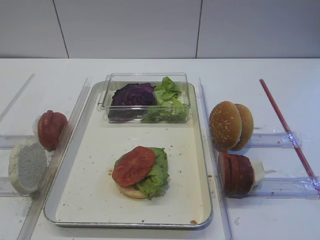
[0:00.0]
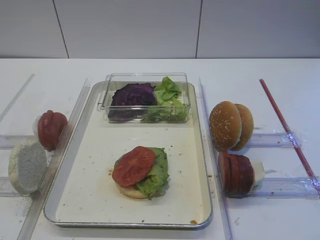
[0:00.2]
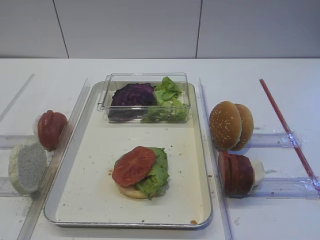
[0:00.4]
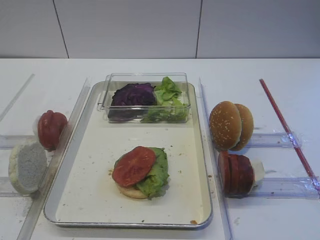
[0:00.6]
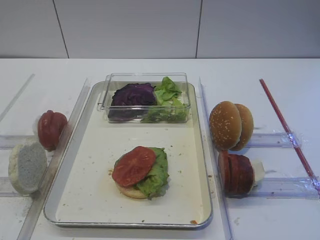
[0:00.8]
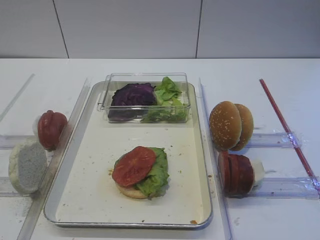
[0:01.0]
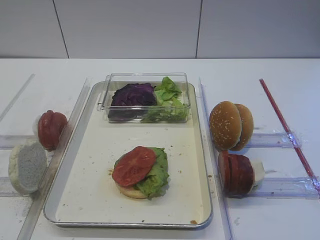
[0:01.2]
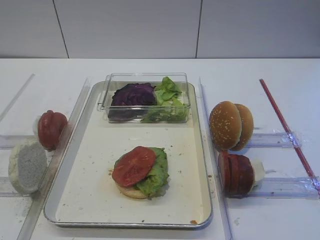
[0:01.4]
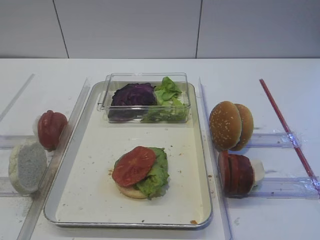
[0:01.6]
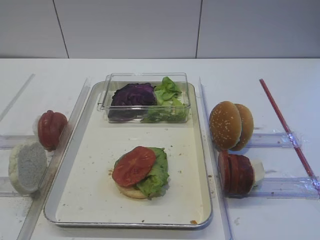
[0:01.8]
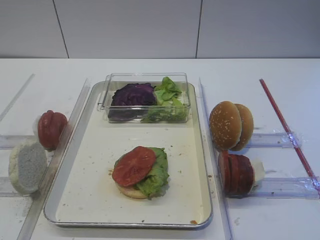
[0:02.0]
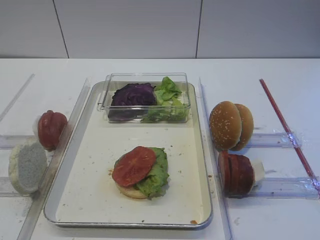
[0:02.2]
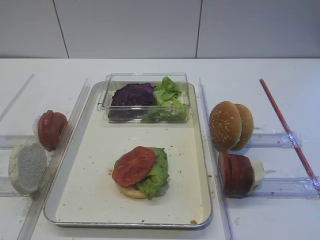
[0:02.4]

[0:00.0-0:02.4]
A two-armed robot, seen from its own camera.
0:00.0 to 0:02.4: Both grippers stay about where they are.

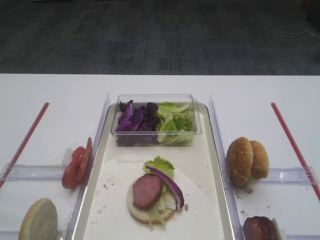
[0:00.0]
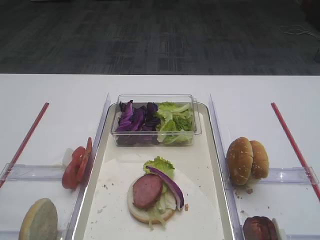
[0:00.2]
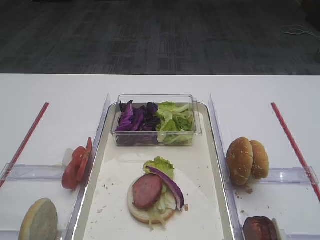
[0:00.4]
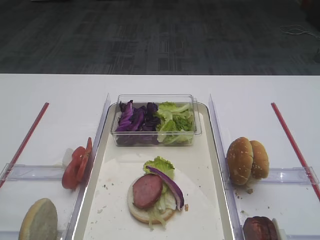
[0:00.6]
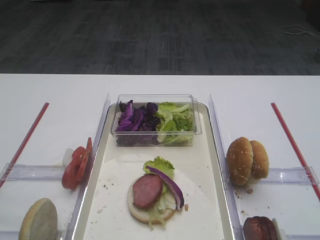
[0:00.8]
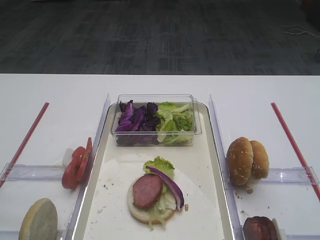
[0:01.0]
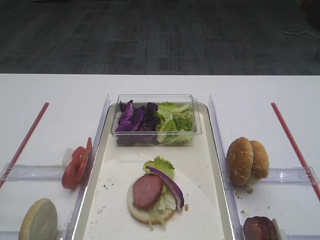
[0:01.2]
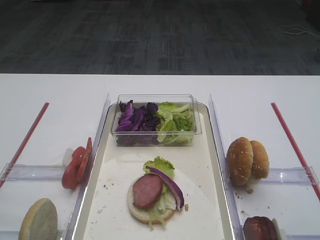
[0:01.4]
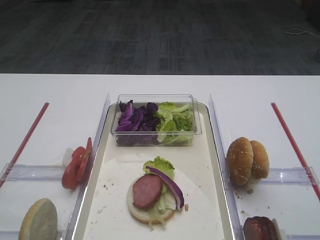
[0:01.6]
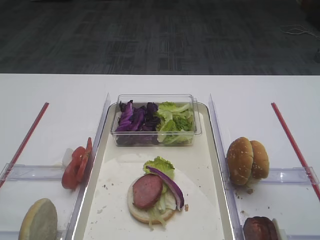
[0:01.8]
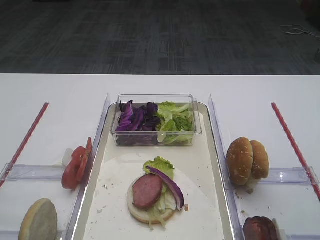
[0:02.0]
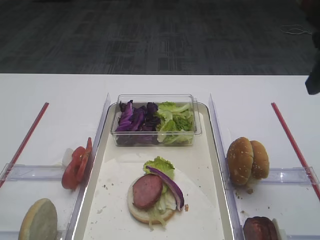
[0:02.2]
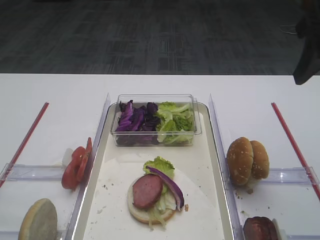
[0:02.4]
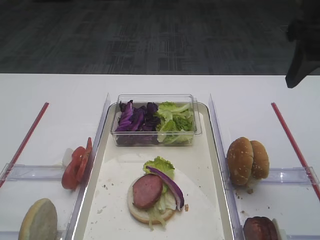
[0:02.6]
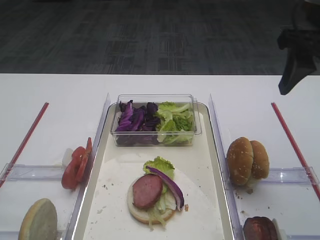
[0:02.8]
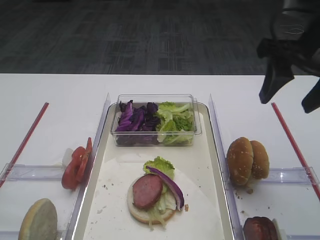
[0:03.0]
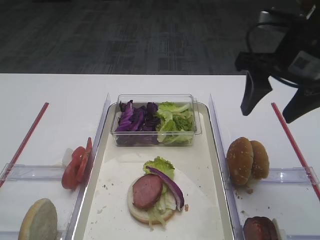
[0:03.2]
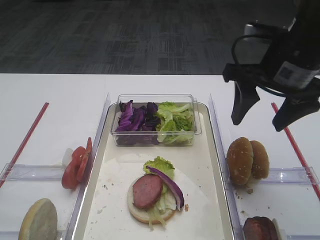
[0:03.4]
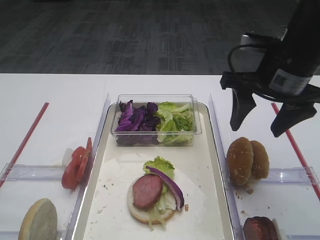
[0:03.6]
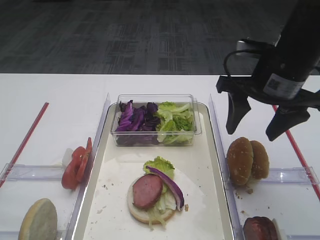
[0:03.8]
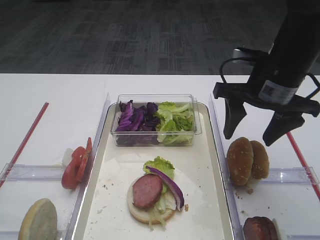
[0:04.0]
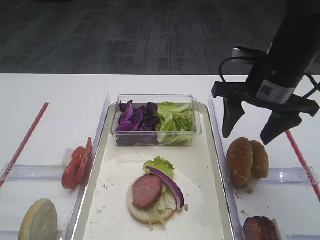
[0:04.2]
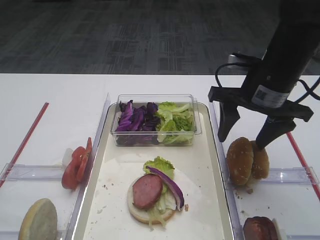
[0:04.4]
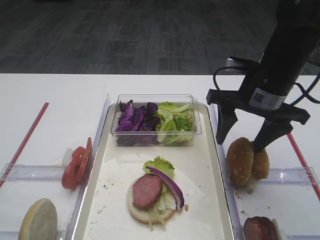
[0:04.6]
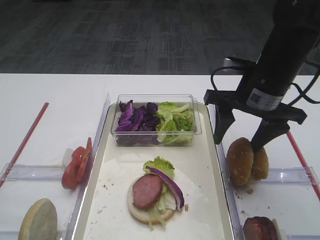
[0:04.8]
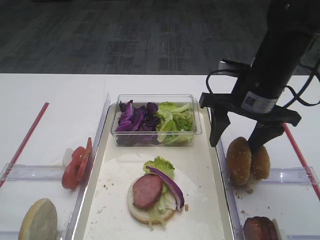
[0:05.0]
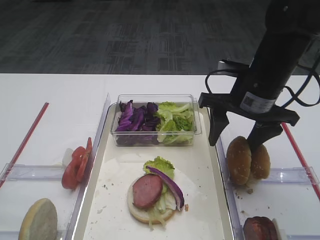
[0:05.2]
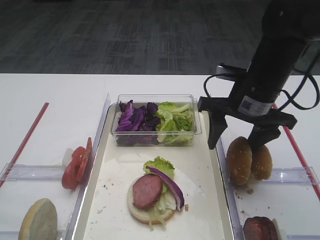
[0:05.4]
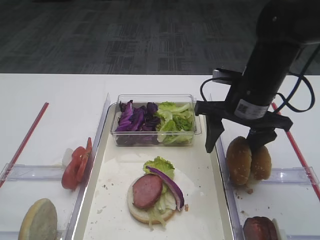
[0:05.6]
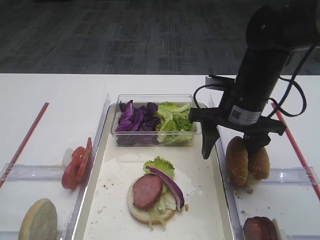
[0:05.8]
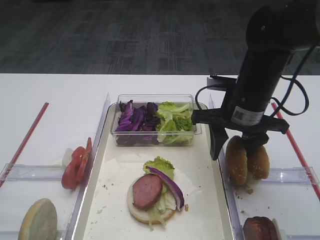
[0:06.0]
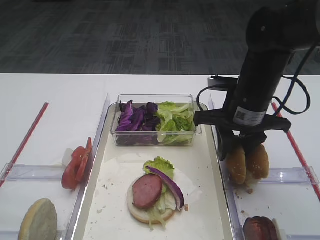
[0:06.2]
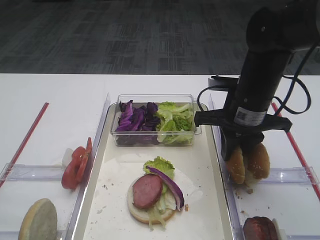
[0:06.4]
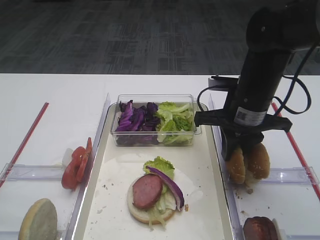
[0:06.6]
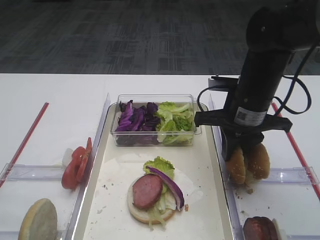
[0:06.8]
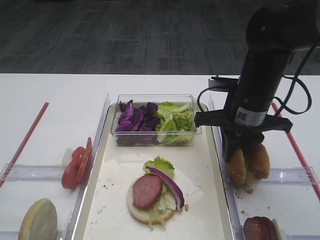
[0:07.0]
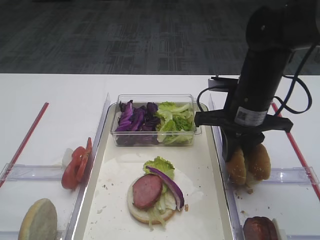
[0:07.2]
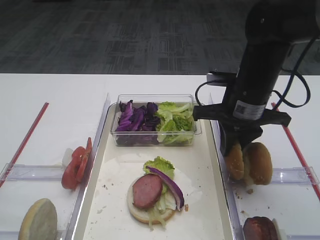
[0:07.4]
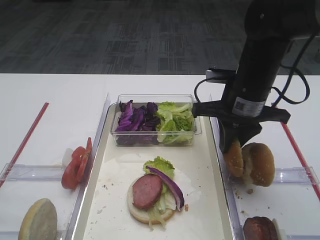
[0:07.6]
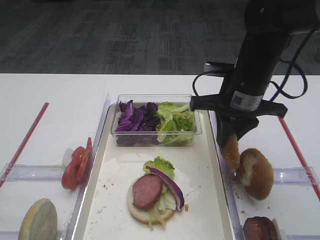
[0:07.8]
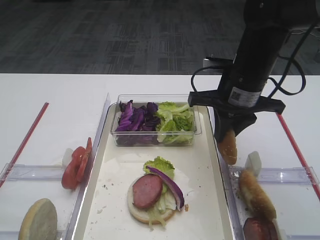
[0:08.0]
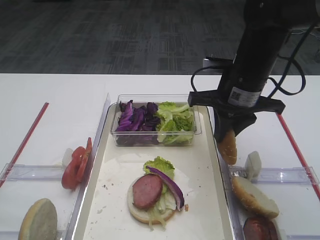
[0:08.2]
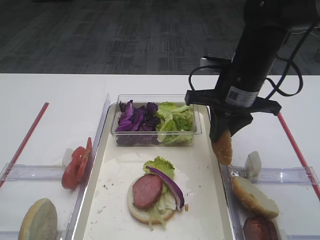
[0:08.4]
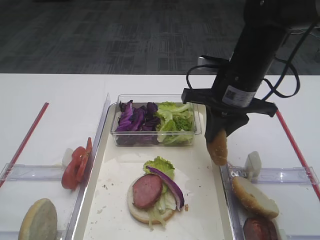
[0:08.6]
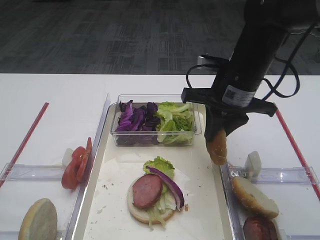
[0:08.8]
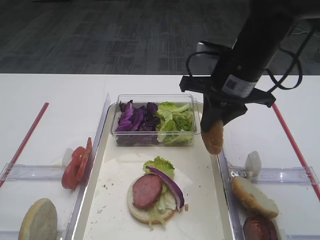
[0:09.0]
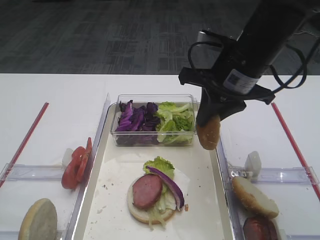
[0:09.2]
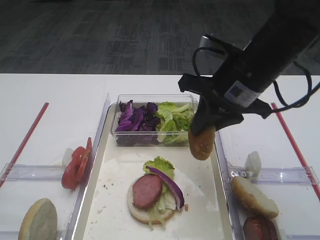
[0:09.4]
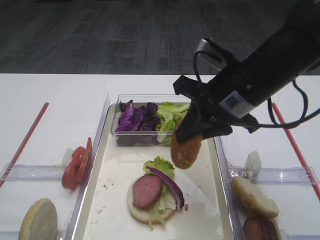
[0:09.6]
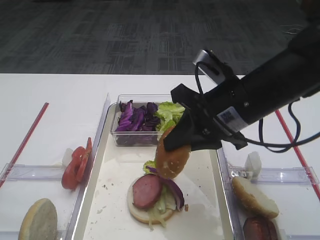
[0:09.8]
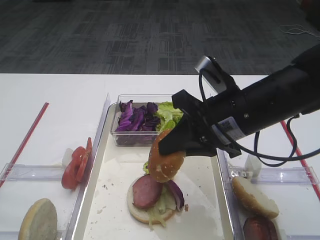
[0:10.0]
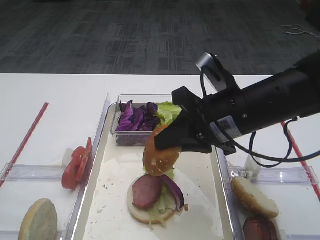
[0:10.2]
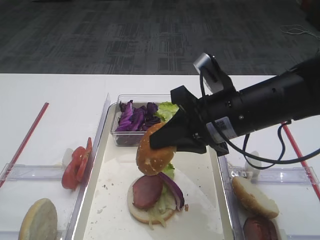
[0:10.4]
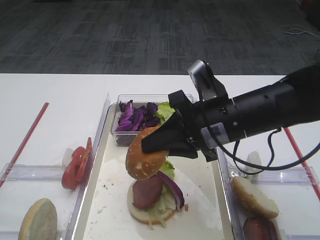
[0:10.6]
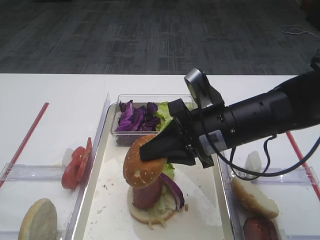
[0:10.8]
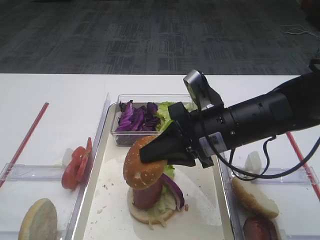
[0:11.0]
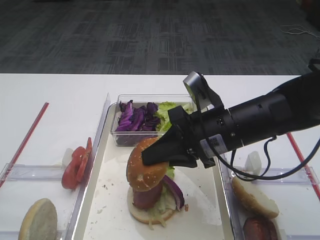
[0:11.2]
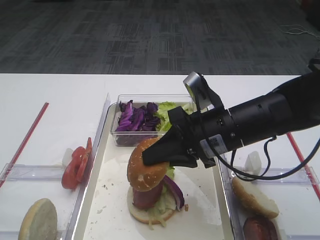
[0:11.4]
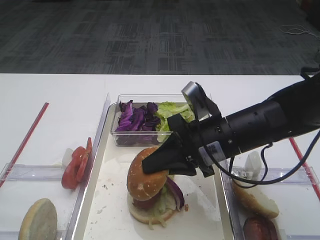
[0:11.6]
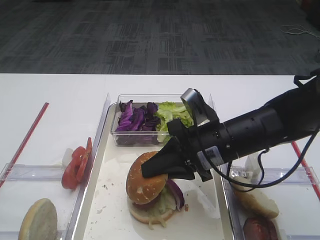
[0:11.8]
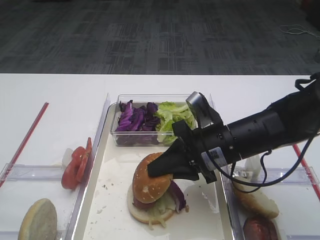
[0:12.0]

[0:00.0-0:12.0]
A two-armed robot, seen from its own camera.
Step, 0:00.0 to 0:08.4: Pick up the hamburger lid with the right gripper.
0:01.6 to 0:03.0: The right gripper is displaced forward by approximately 20 cm.
0:03.0 to 0:04.4: The right gripper moves downward and to the left, some 10 cm.
0:04.4 to 0:06.0: The grippers stay close to where they were, moving slightly.
0:06.0 to 0:07.6: The right gripper closes its fingers.
0:07.6 to 0:09.0: The grippers move only a little.
0:09.0 to 0:10.4: The right gripper shifts roughly 5 cm backward.
0:10.4 to 0:12.0: The right gripper shifts approximately 5 cm downward.

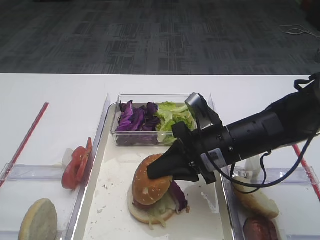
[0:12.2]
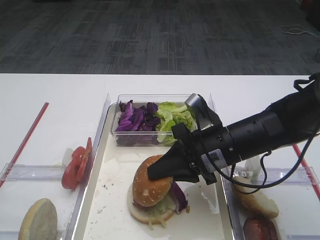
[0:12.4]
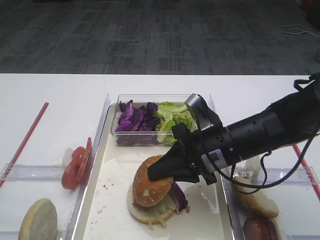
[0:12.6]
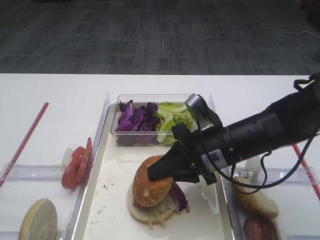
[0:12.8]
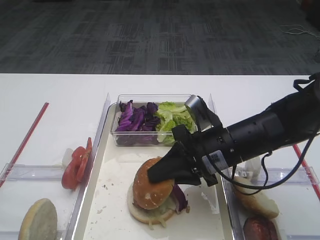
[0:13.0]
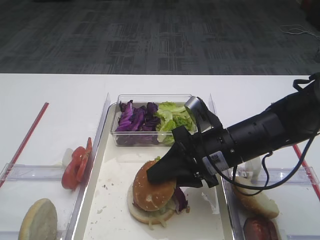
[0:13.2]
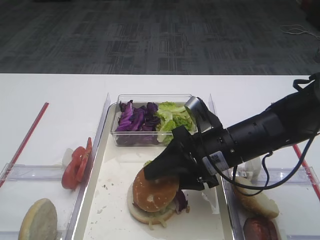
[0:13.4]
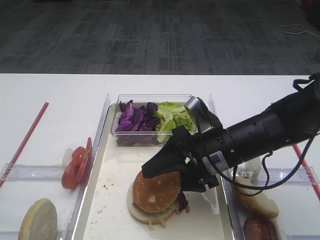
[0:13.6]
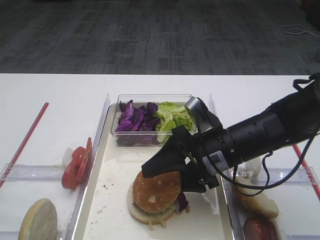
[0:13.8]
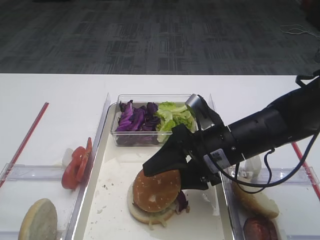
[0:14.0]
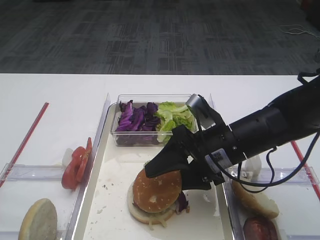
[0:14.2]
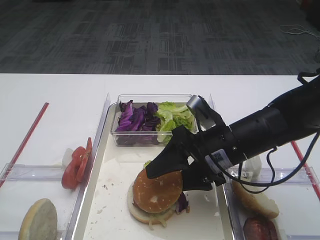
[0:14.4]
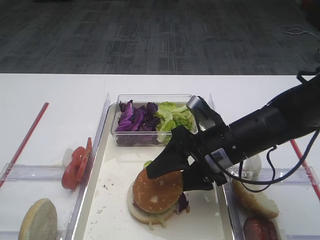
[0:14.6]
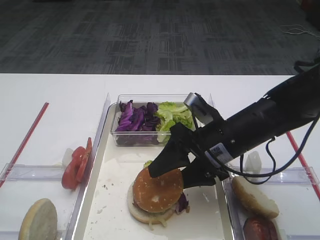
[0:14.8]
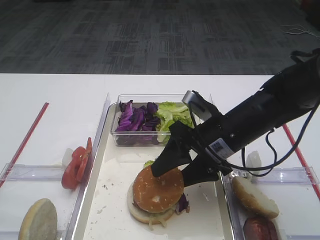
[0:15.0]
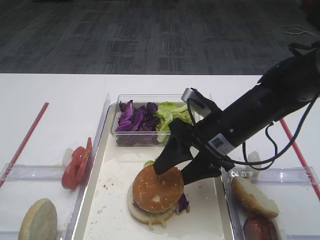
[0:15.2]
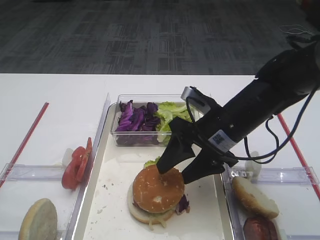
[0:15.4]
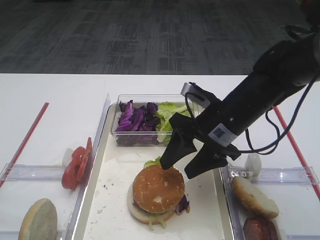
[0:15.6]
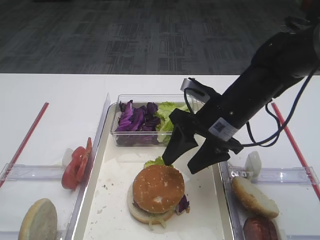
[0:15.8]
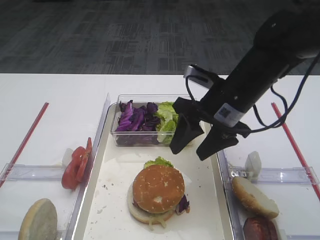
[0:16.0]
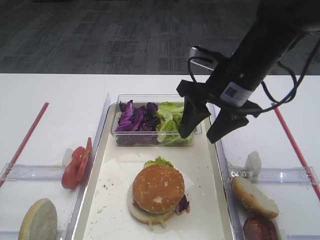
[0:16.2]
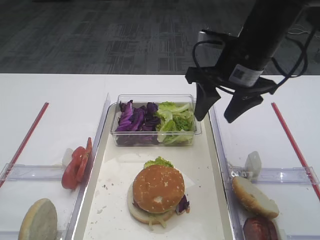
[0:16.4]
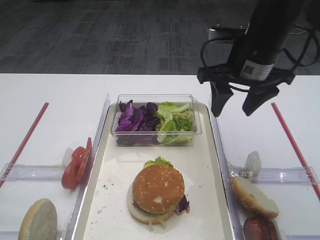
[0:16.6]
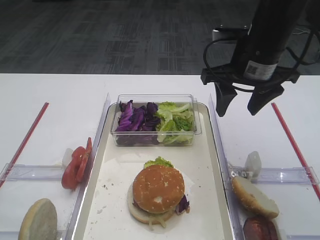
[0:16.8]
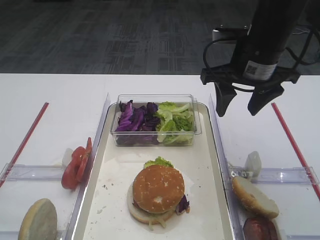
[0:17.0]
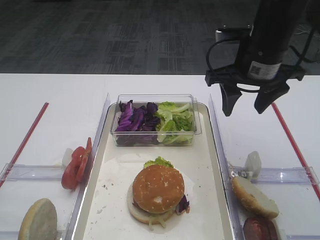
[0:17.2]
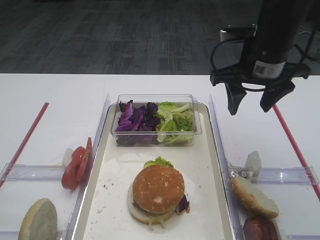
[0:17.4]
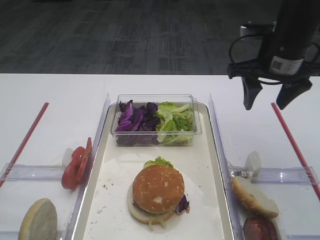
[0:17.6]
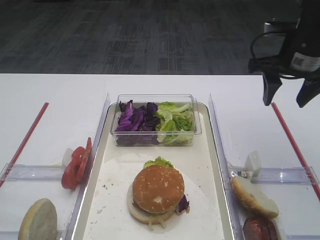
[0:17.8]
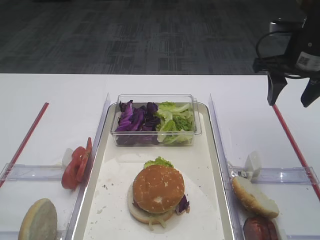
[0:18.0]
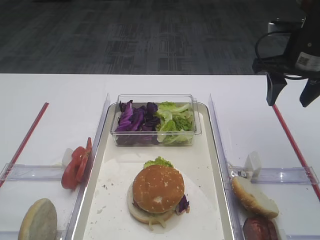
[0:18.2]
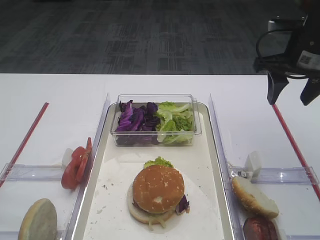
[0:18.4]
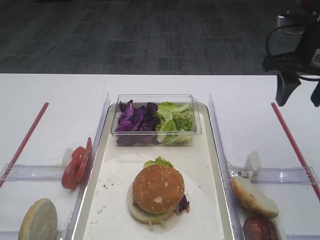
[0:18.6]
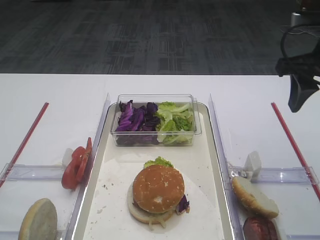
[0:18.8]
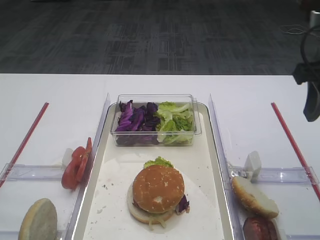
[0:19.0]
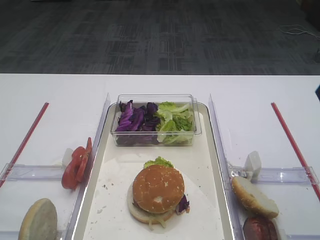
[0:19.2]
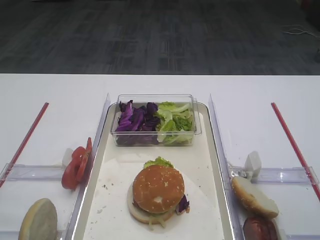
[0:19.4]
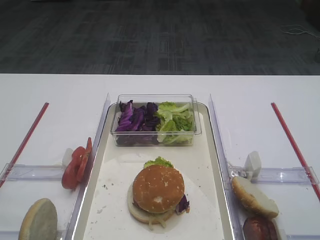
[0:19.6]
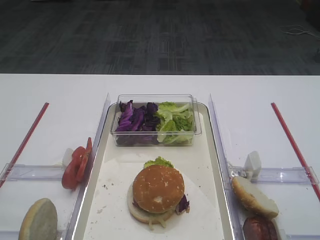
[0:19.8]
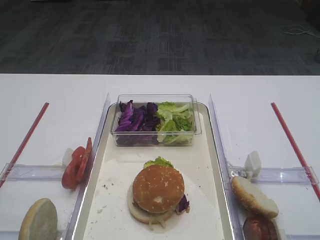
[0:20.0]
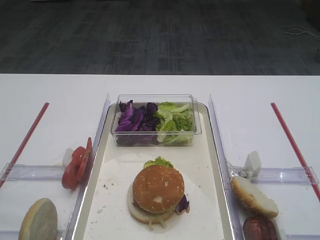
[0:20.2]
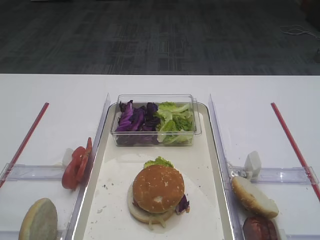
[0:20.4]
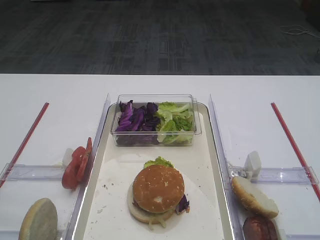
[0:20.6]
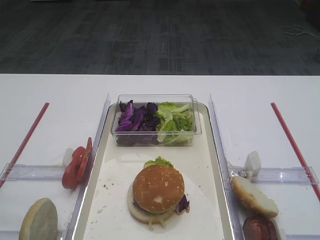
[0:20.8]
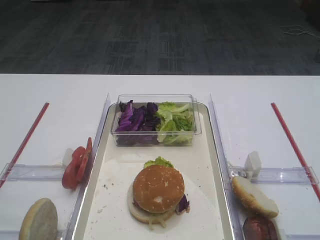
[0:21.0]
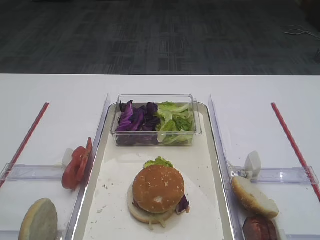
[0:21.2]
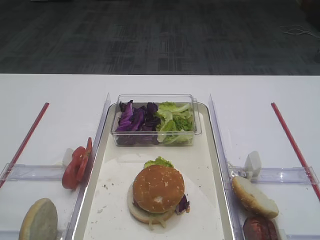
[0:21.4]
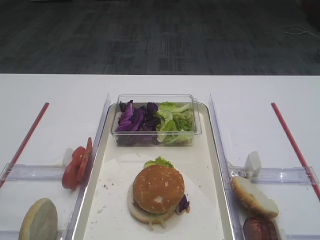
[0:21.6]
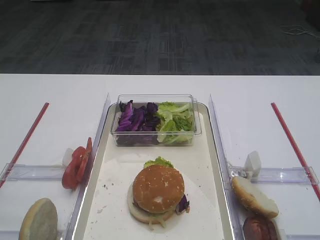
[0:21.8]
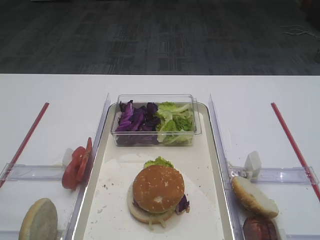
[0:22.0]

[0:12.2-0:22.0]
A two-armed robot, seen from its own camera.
Step, 0:12.2 to 0:16.4: Place the hamburger lid on the cutlet with the right gripper.
0:12.2 to 0:13.6: The right gripper opens up.
0:13.6 to 0:15.0: The grippers stay close to where they were, moving slightly.
0:15.0 to 0:16.4: The right gripper travels upward and forward by some 10 cm.
0:16.4 to 0:17.8: The right gripper shifts about 10 cm to the right.
0:17.8 to 0:19.2: The right gripper is displaced backward by roughly 15 cm.
